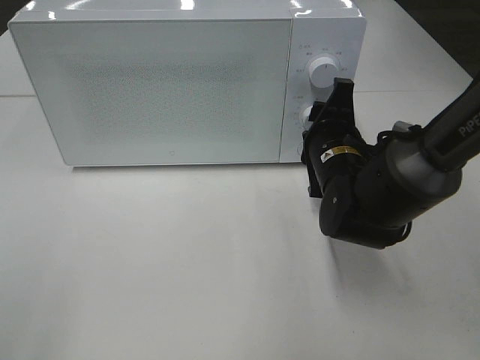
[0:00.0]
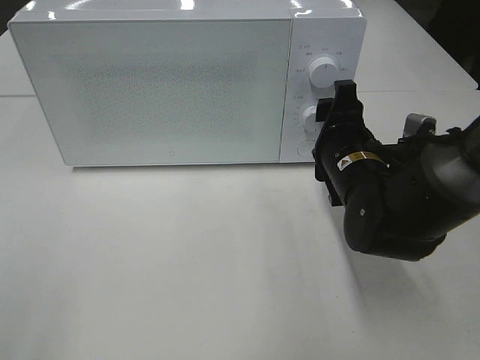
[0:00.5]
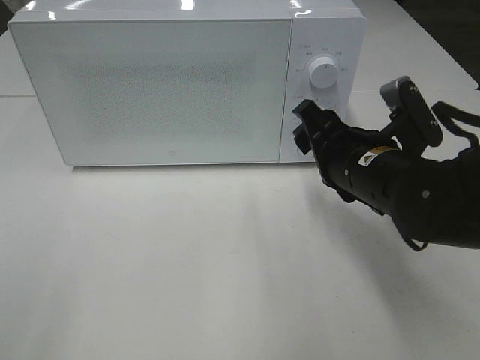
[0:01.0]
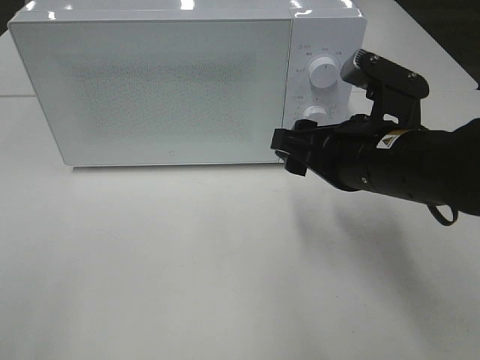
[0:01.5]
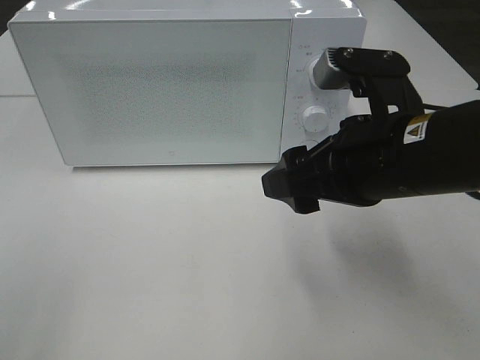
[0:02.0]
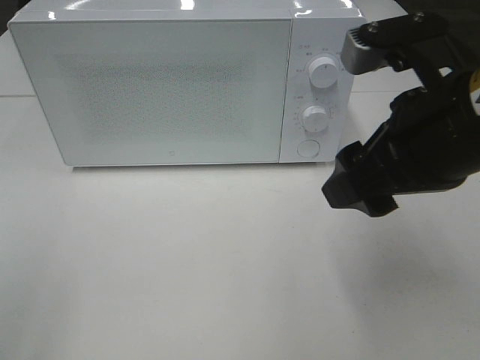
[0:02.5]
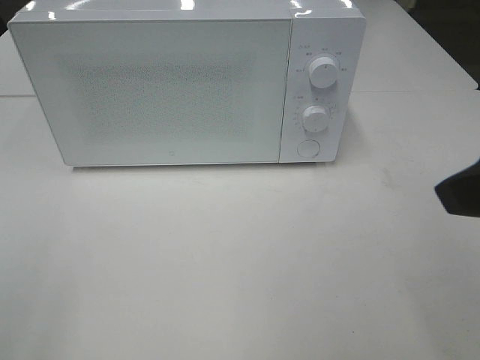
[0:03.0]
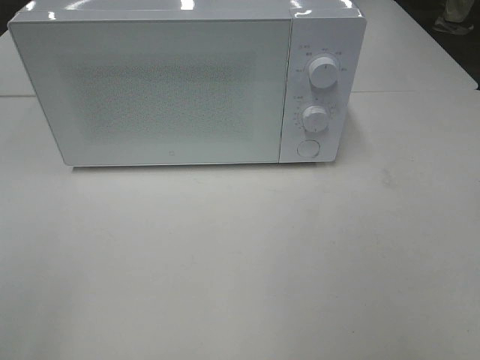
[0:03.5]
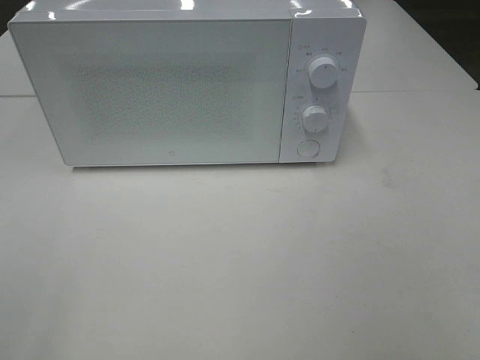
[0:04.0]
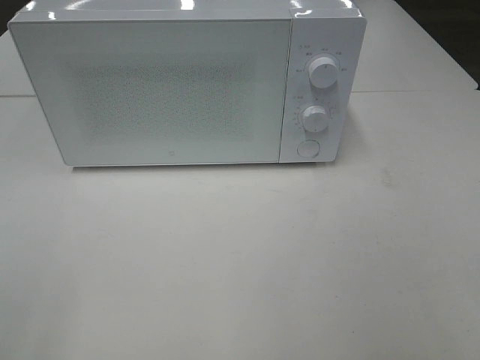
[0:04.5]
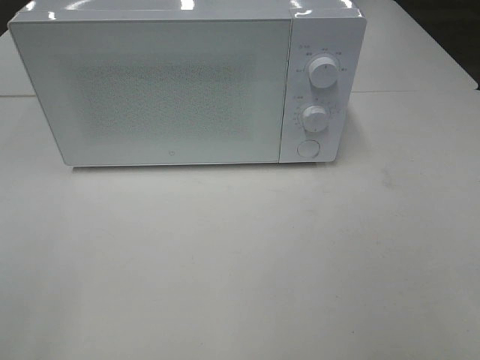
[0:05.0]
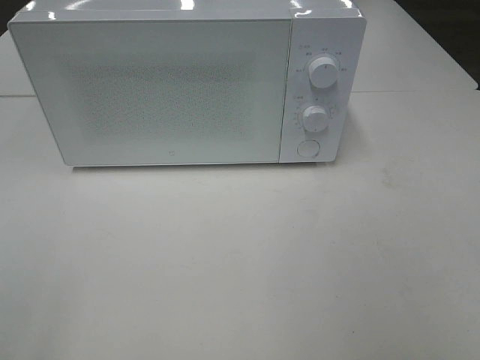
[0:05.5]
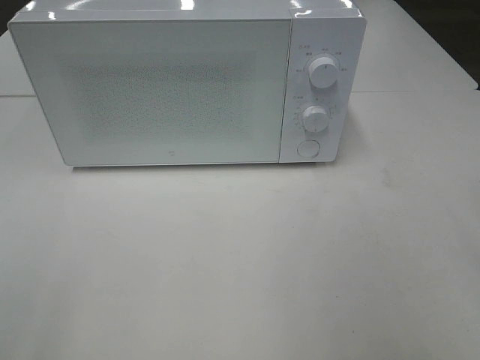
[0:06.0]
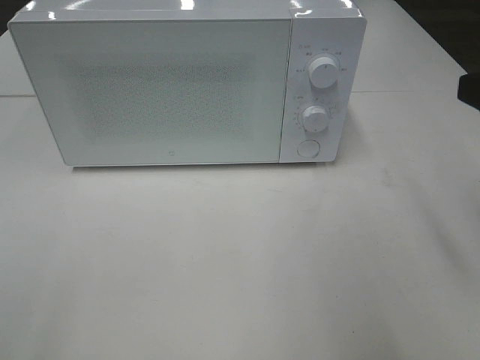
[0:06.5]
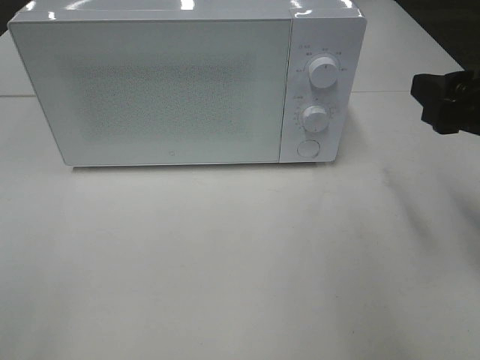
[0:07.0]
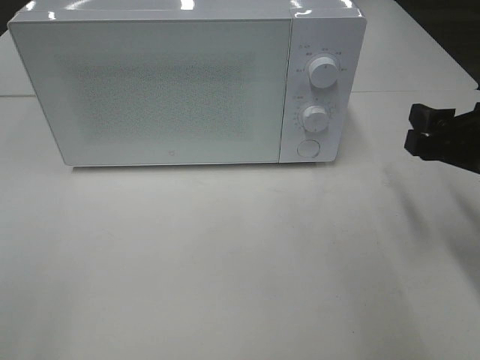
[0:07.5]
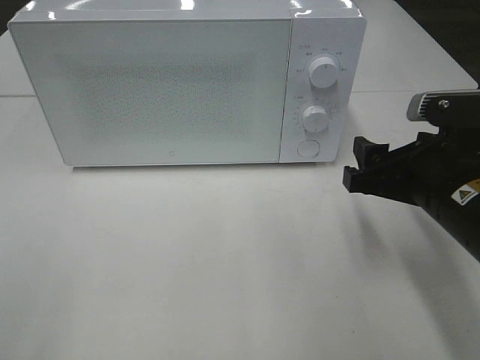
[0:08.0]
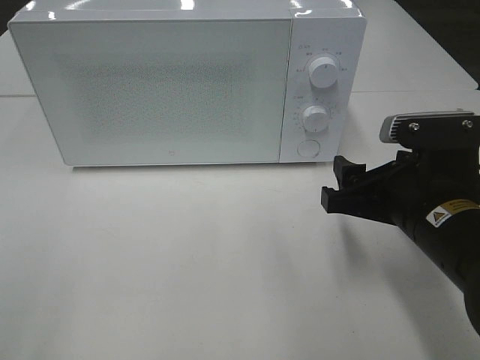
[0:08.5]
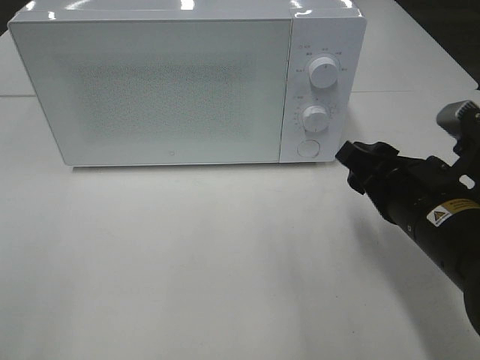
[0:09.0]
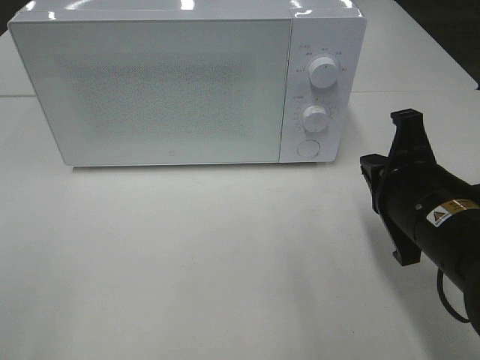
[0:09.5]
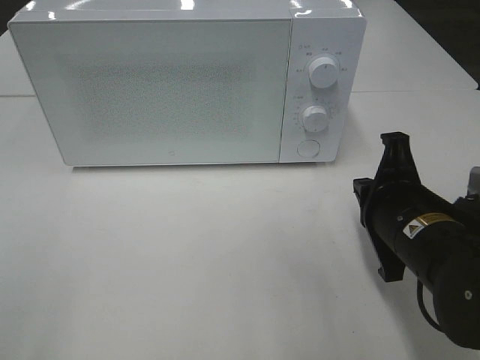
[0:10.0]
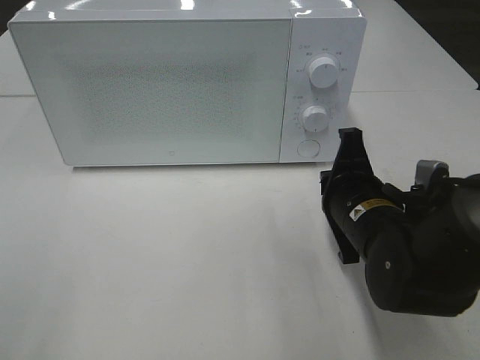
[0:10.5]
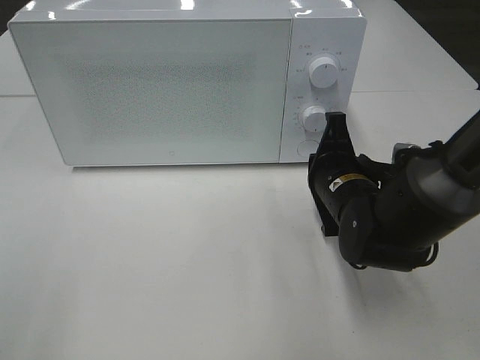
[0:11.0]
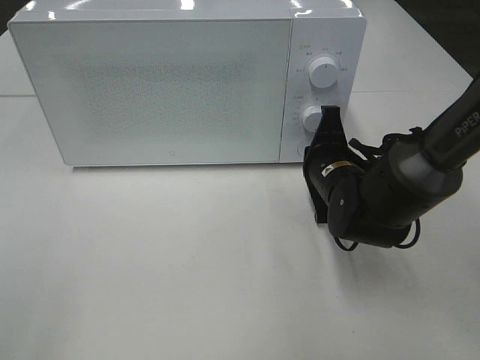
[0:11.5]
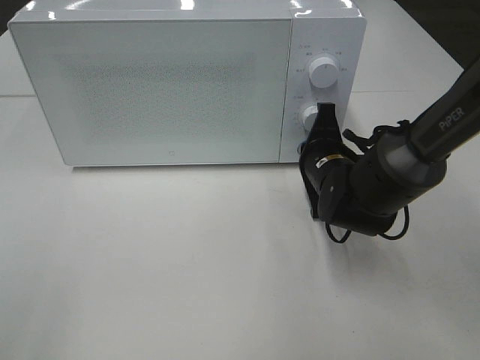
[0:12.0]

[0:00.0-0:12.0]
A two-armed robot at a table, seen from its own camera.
Task of the whole recording: Heat the burger.
0:00.0 to 0:02.0: The right gripper shifts about 15 cm upward and backward.
0:02.0 to 0:04.0: The right gripper moves backward and to the right, some 25 cm.
0:06.0 to 0:08.0: The right gripper shifts some 20 cm downward, forward and to the left.
0:08.0 to 0:10.0: The right gripper closes.
0:10.0 to 0:12.0: The right gripper is displaced forward by approximately 15 cm.

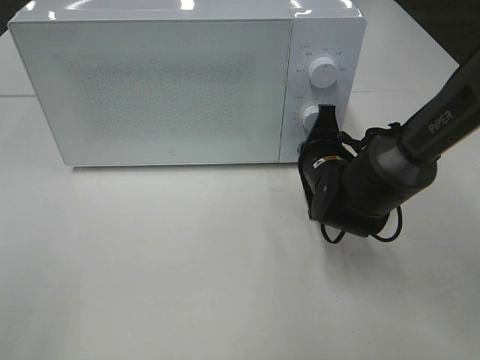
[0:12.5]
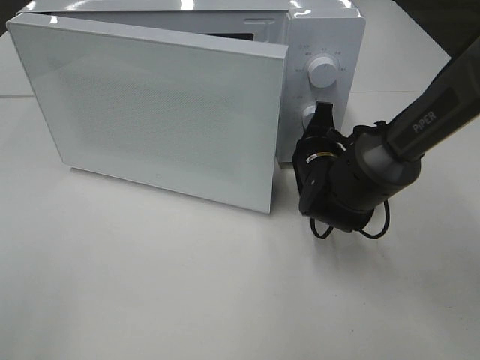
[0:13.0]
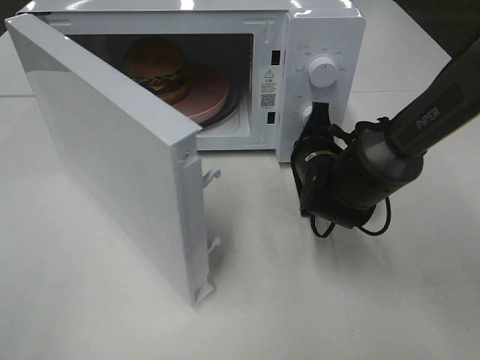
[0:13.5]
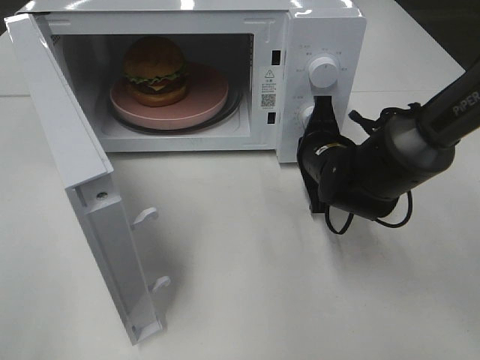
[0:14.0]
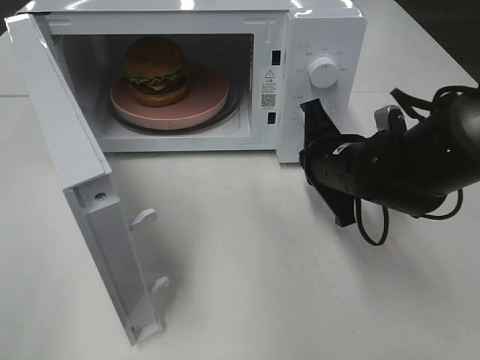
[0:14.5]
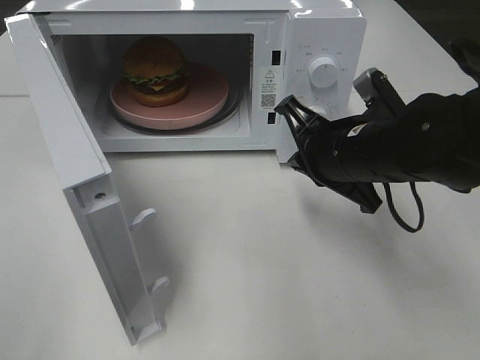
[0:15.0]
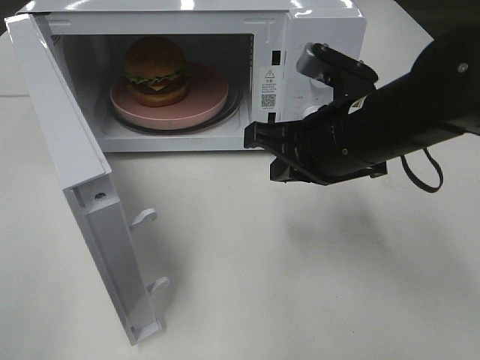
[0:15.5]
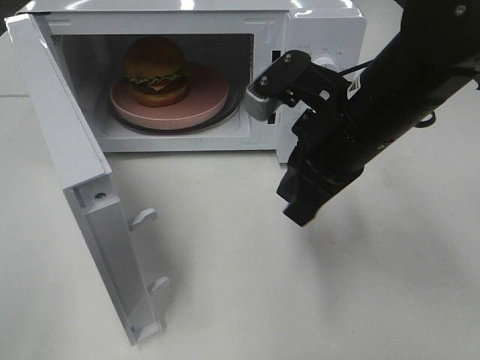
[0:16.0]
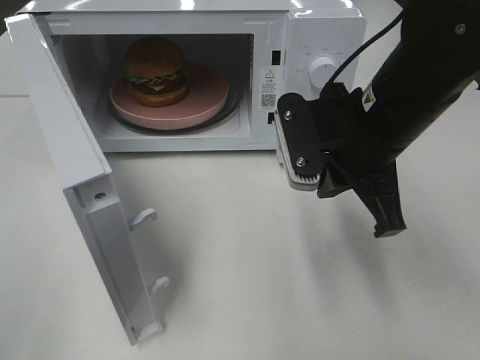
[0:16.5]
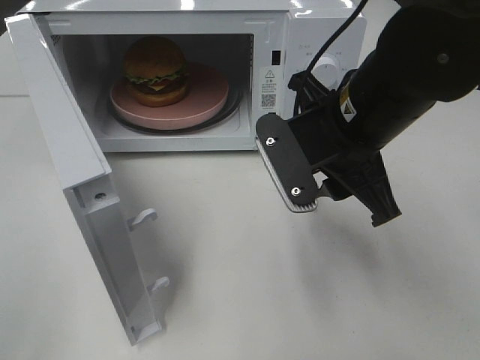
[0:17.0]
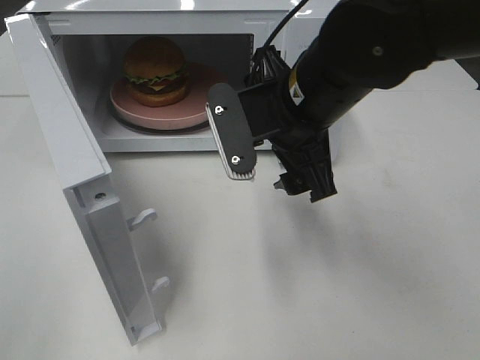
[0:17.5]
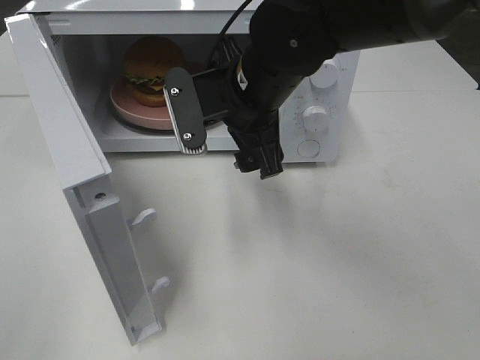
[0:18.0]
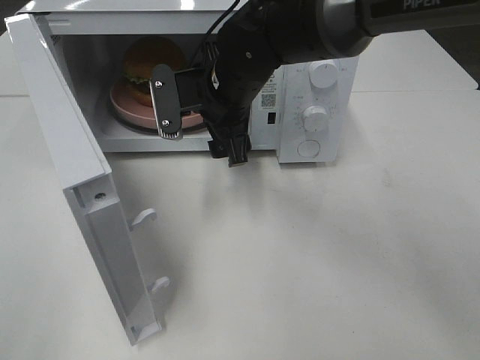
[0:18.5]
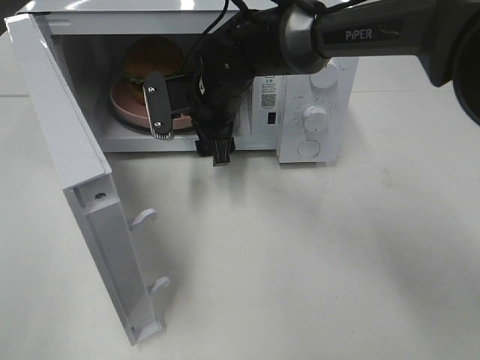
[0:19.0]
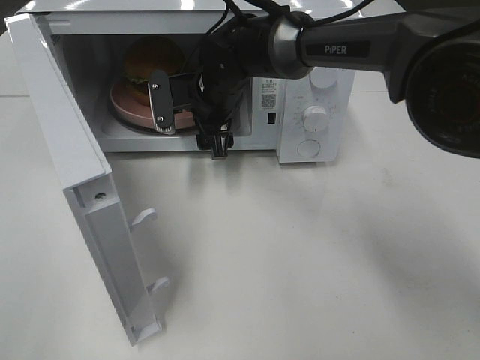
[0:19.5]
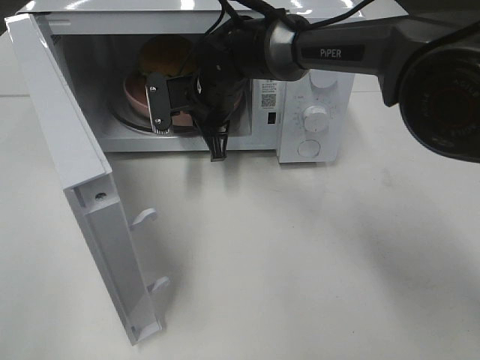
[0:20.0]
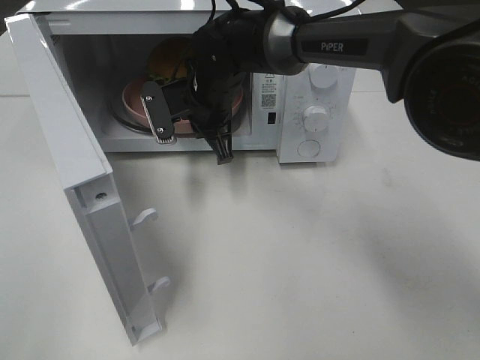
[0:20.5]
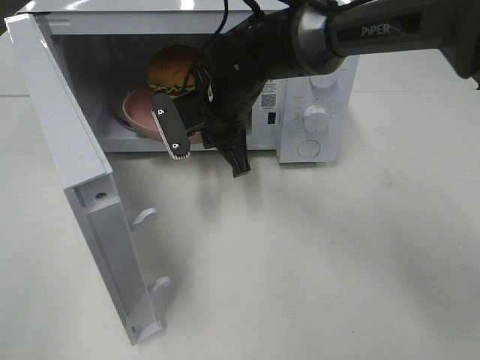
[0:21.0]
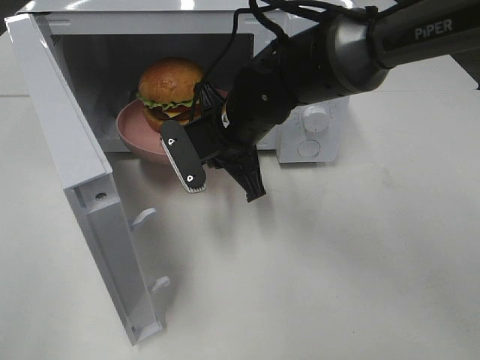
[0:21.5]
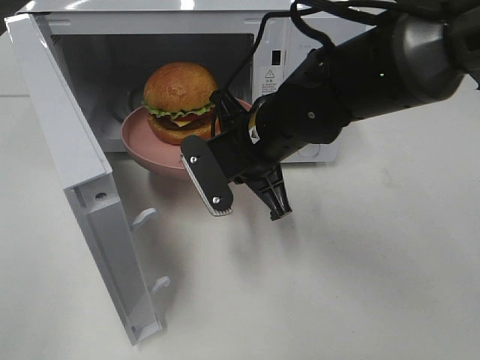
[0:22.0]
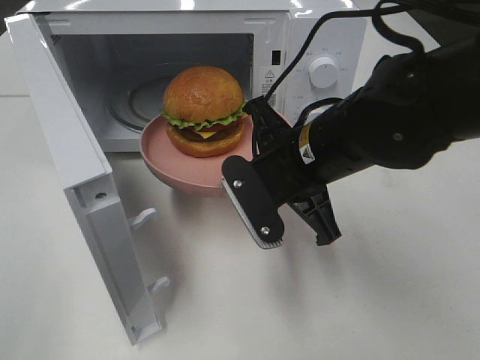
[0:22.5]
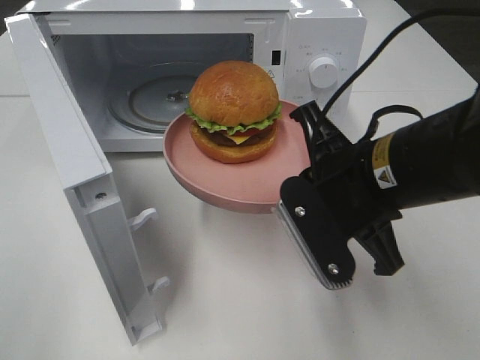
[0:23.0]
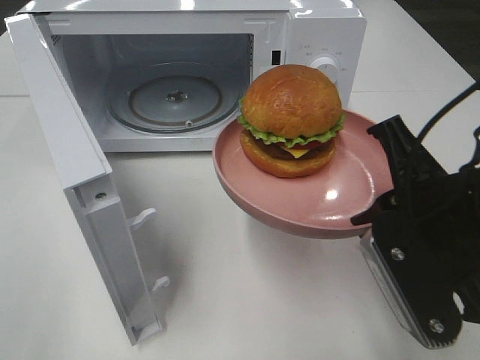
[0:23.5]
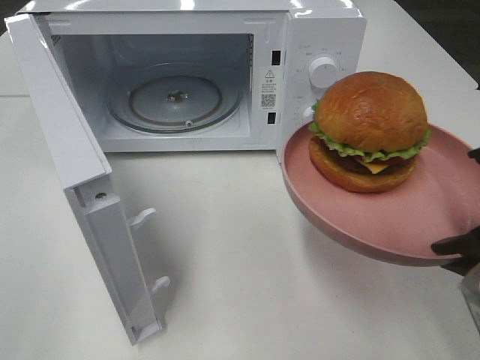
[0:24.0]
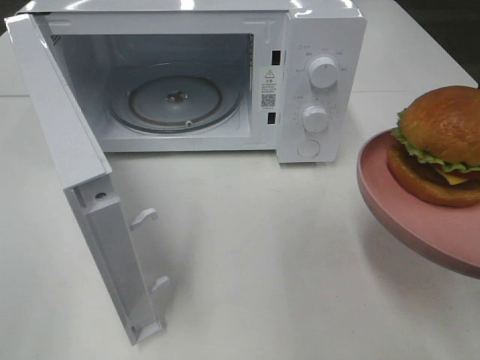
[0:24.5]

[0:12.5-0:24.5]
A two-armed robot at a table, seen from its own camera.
Task of the whole recording: Heat the burger.
Step, 0:14.5 to 0:20.0: Right hand: grab the plate with the hamburger.
0:12.5 to 0:14.5: The right gripper ends up some 5 cm from where it was.
0:14.5 to 0:16.5: The right gripper goes about 10 cm upward.
0:16.5 to 0:18.5: The right gripper is displaced to the left and forward by roughly 15 cm, and opens its fingers.
0:18.5 to 0:20.5: The right gripper shifts by roughly 5 cm, and closes its fingers.
0:20.5 to 0:22.5: The right gripper is displaced backward and to the right by some 20 cm.
0:22.5 to 0:24.5: The right gripper goes about 25 cm to the right and backward.

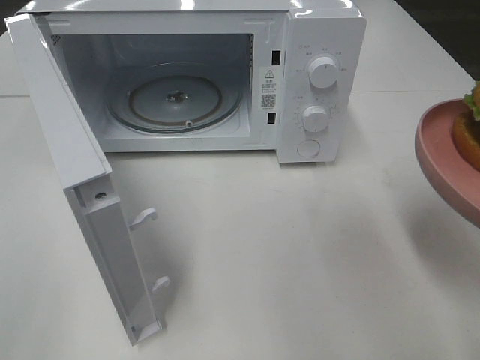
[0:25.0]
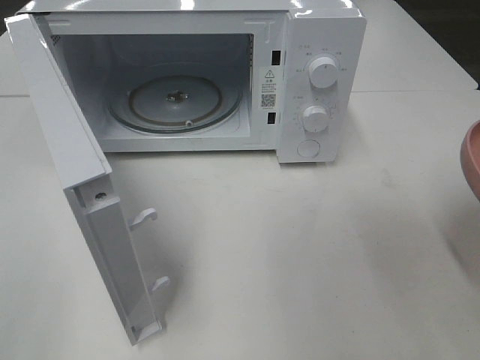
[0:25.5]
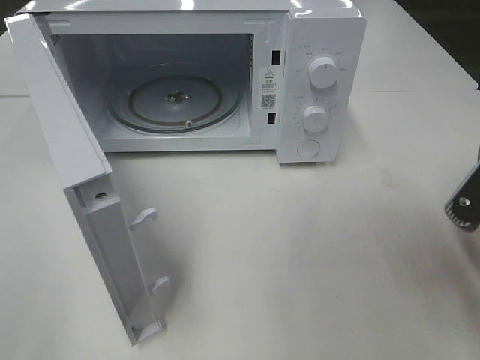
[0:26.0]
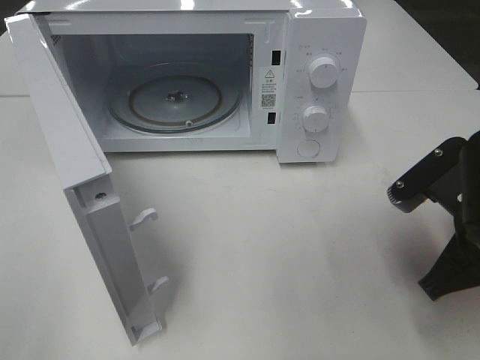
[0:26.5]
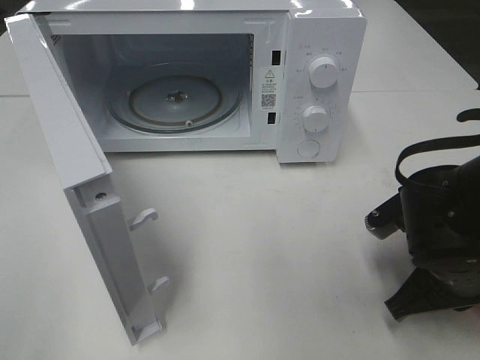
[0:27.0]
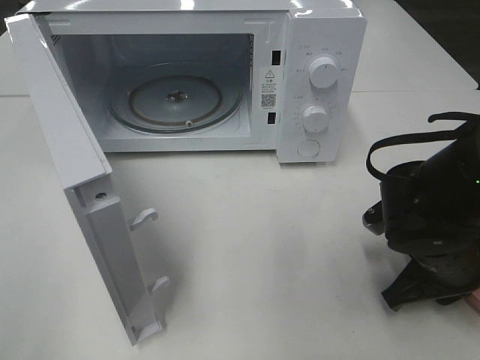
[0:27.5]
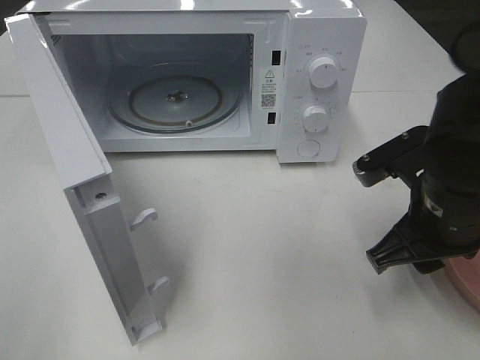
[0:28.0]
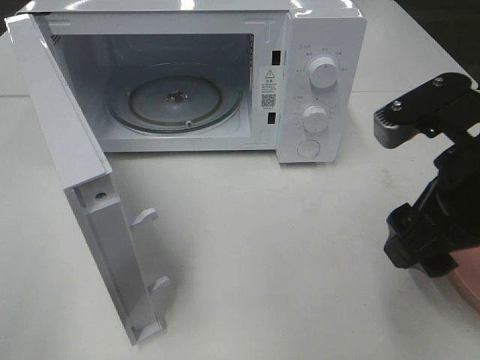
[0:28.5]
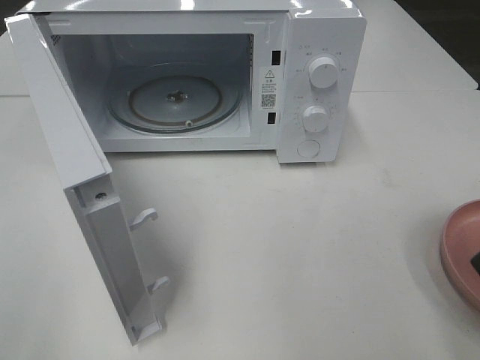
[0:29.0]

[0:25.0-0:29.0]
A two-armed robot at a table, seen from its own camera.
Task of the whole recording: Heat the burger.
Step, 0:25.0 to 0:27.5: Right hand: place the plate on the table.
0:25.0 to 0:27.0: The right gripper shifts approximately 15 cm downward, forward and to the left.
0:27.0 to 0:29.0: The right gripper shifts some 20 cm upward, and opens.
